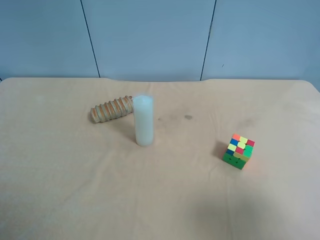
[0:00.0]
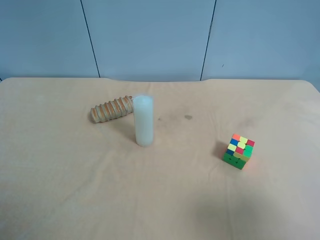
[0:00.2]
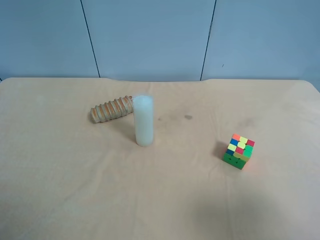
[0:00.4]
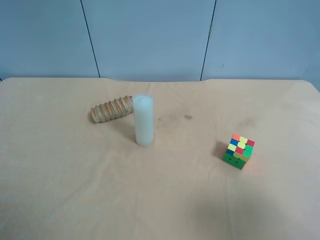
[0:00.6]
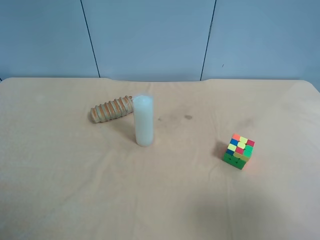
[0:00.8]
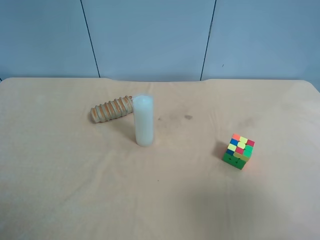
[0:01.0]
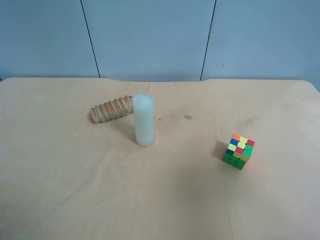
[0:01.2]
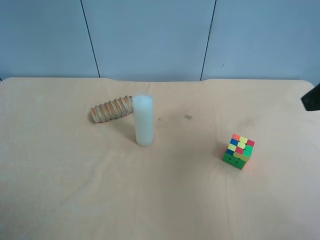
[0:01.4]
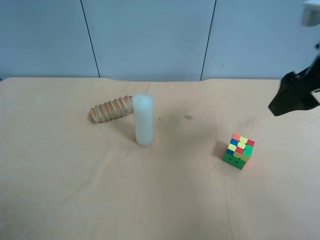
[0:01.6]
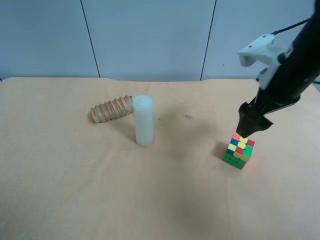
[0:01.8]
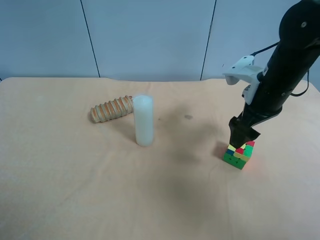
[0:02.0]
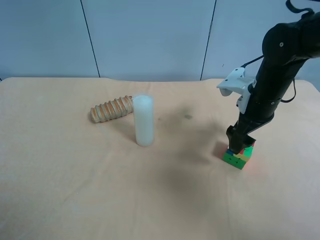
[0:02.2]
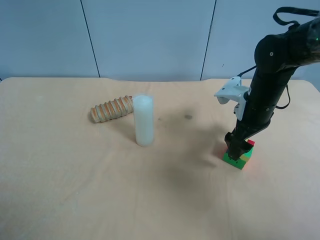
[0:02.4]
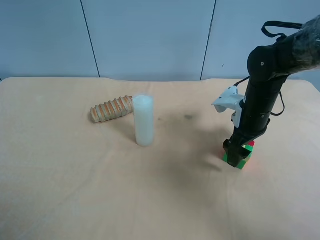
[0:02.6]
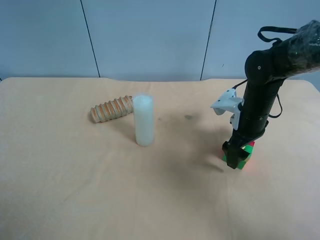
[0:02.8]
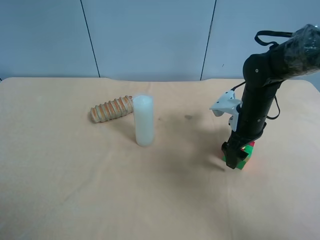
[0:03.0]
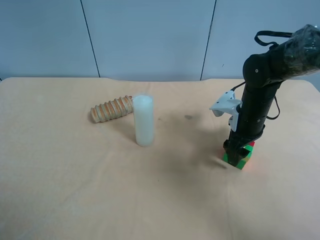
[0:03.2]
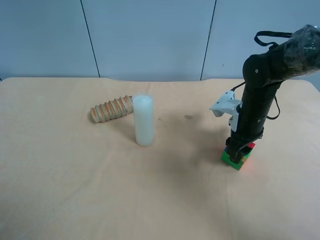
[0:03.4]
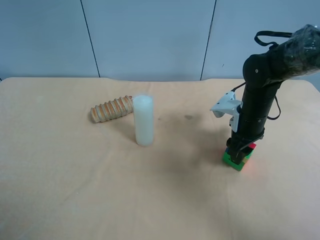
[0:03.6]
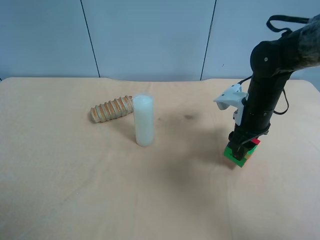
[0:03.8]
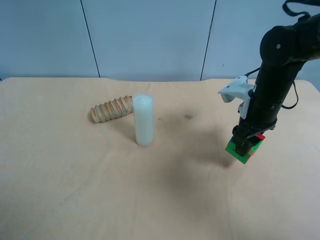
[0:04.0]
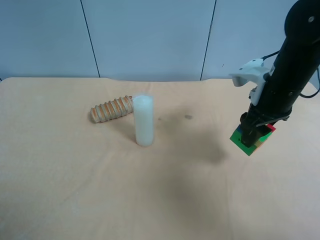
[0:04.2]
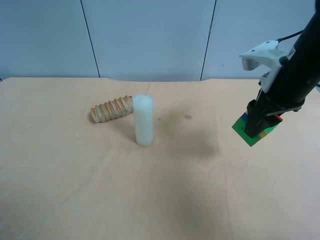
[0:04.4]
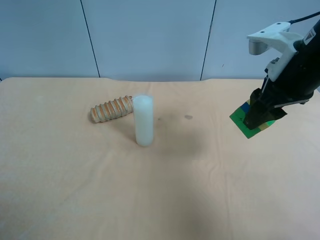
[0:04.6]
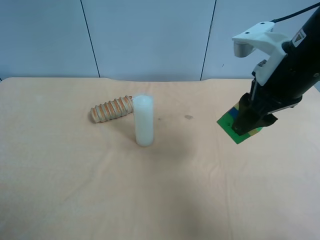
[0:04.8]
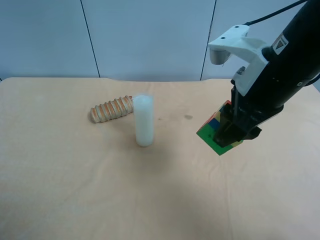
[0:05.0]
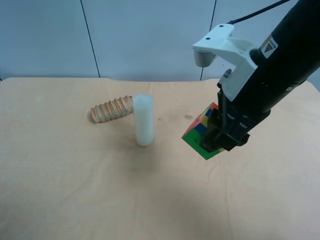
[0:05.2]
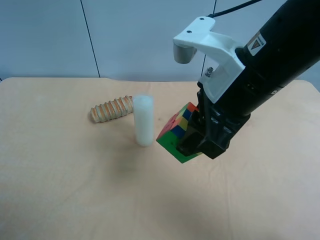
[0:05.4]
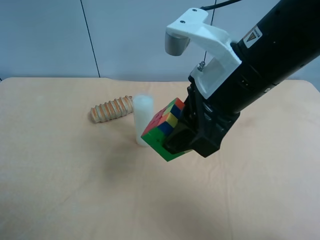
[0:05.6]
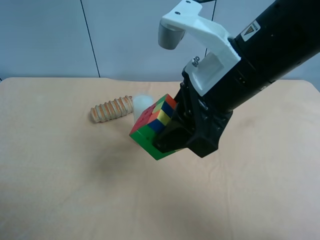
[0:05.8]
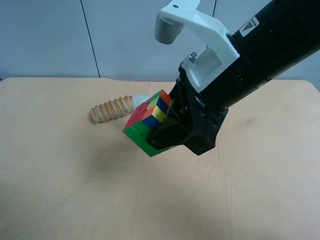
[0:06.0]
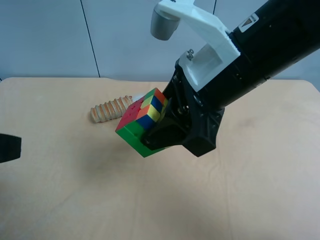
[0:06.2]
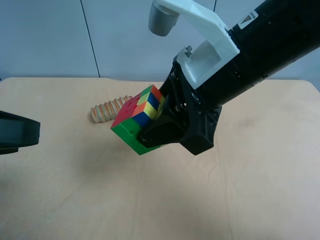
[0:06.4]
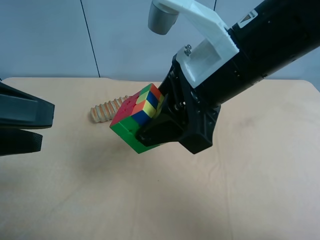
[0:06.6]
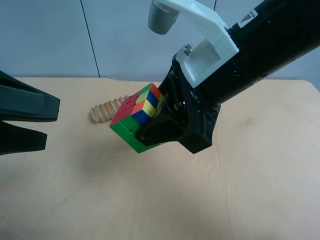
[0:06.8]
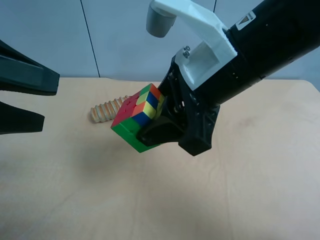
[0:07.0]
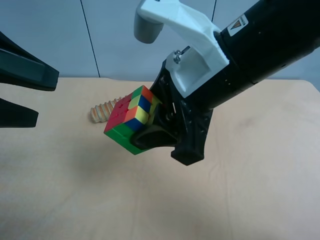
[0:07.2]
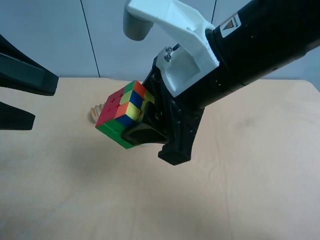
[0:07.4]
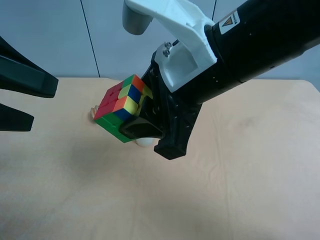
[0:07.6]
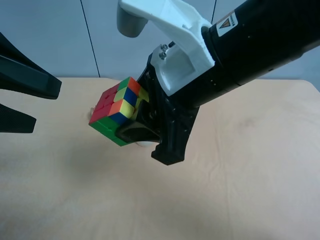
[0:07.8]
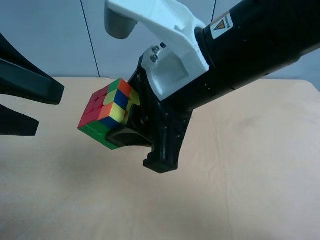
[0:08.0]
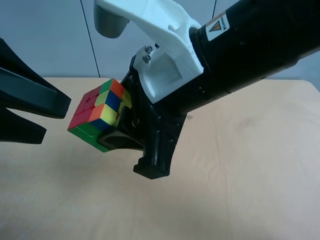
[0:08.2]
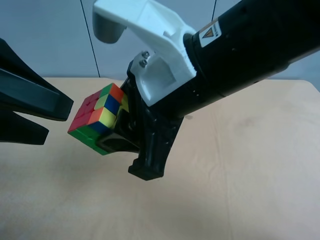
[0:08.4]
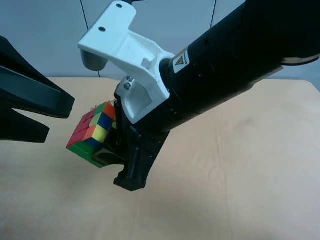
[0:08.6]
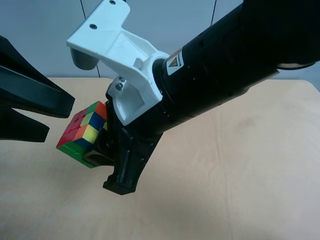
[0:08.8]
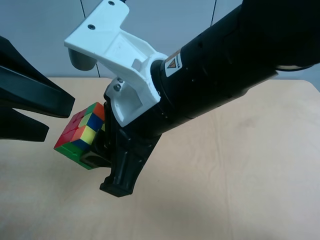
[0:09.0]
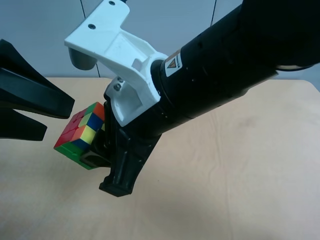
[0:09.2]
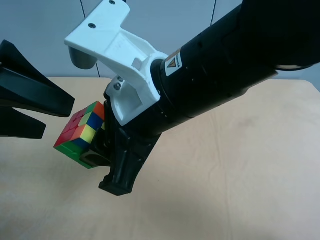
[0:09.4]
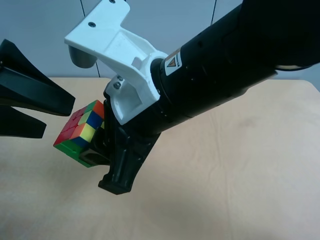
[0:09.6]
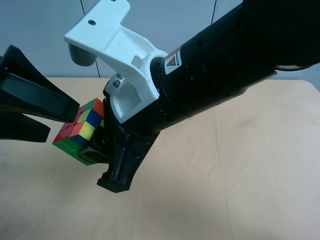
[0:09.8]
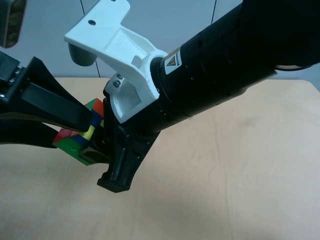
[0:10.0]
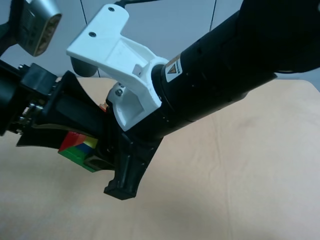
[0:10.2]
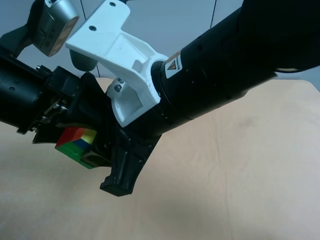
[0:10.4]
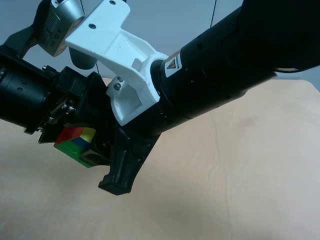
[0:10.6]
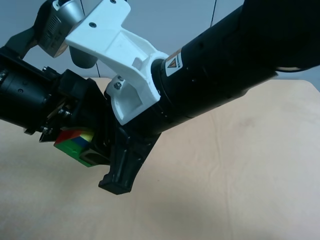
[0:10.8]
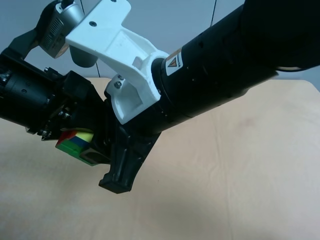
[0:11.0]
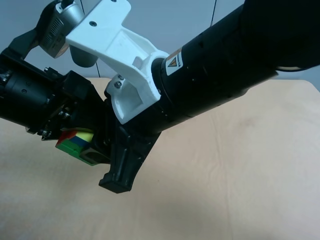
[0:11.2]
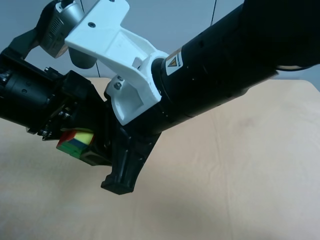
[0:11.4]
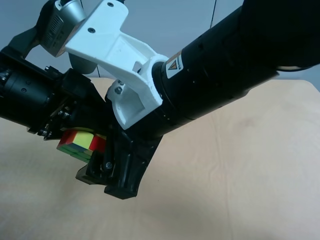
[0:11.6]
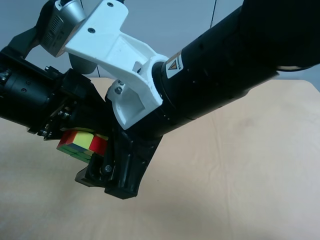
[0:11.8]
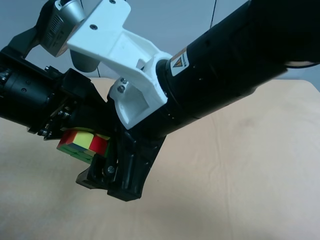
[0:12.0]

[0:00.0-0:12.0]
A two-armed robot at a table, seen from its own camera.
Task of the whole recording: use the right gripper to pick up the item and transfer it from the right gripper to the left gripper.
0:00.0 to 0:01.6: The right gripper goes about 25 cm forward.
0:01.6 to 0:03.0: The right gripper goes roughly 20 cm downward and forward.
0:03.0 to 0:04.4: The right gripper heads upward and backward, covering approximately 15 cm, and closes its fingers.
0:04.4 to 0:06.0: The left gripper shifts some 5 cm forward. Meanwhile the right gripper travels to the left and backward by about 15 cm.
0:06.0 to 0:07.6: The left gripper heads forward, covering approximately 10 cm.
0:07.6 to 0:09.0: The right gripper changes place by some 5 cm.
0:09.0 to 0:10.4: The left gripper shifts roughly 5 cm to the right.
0:10.4 to 0:12.0: The left gripper closes up. Meanwhile the right gripper opens.

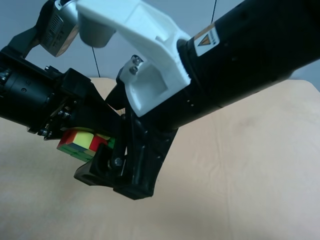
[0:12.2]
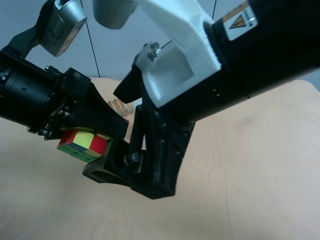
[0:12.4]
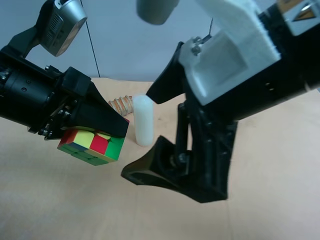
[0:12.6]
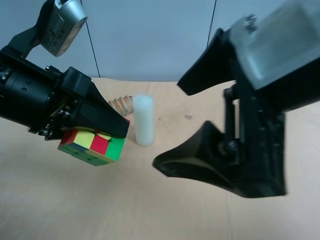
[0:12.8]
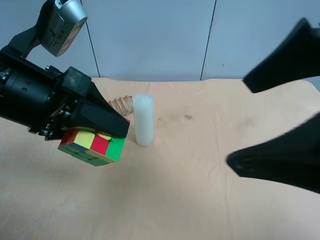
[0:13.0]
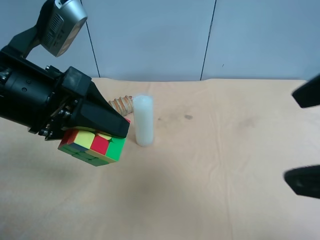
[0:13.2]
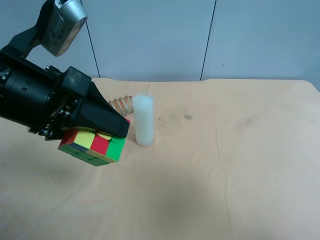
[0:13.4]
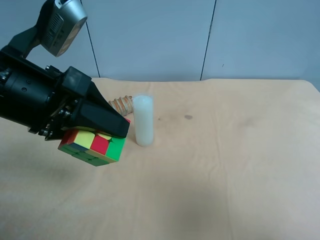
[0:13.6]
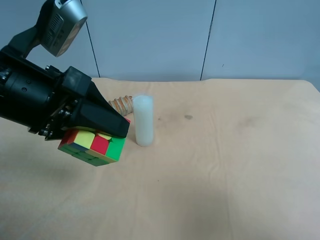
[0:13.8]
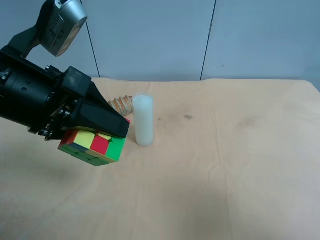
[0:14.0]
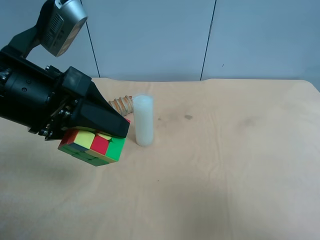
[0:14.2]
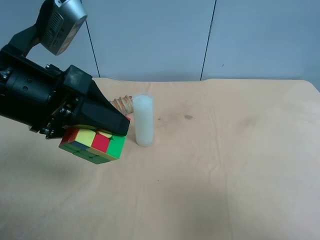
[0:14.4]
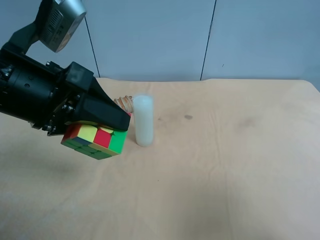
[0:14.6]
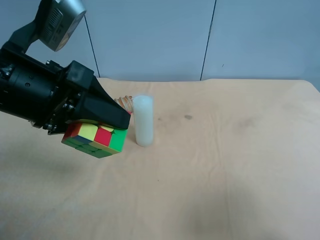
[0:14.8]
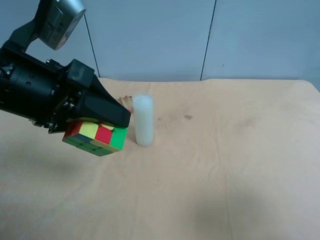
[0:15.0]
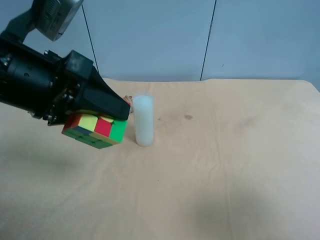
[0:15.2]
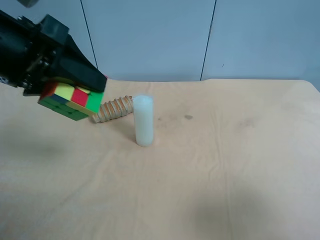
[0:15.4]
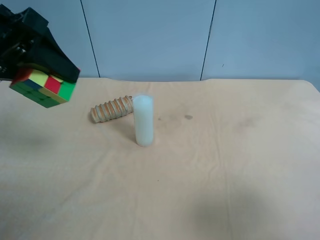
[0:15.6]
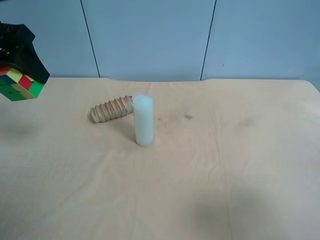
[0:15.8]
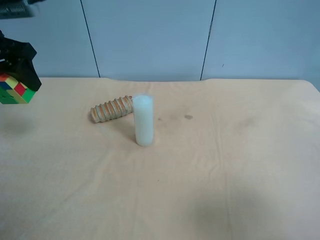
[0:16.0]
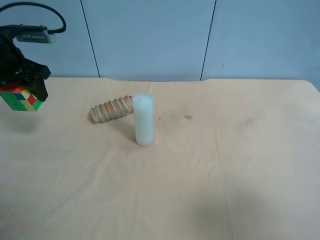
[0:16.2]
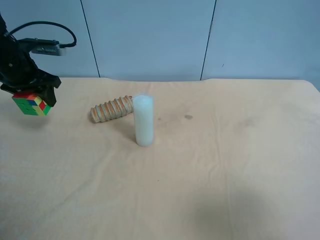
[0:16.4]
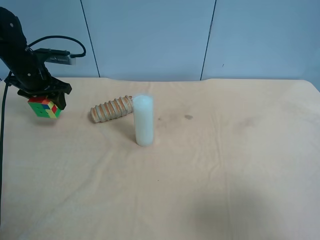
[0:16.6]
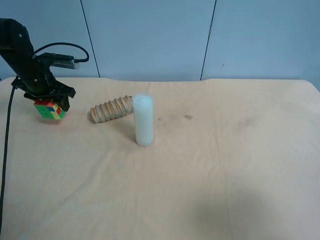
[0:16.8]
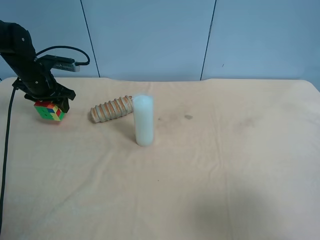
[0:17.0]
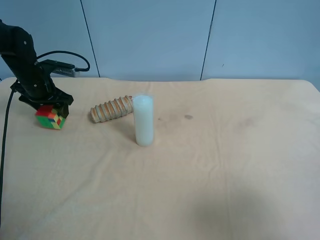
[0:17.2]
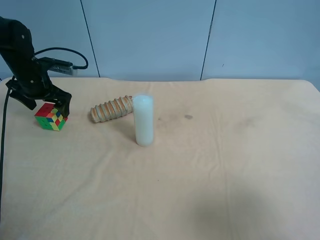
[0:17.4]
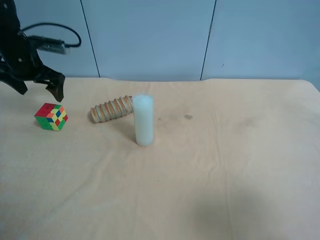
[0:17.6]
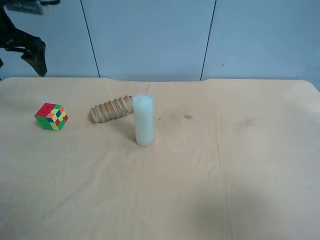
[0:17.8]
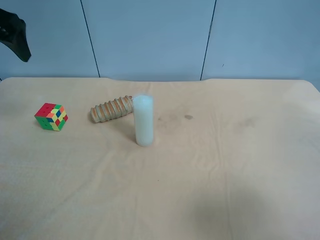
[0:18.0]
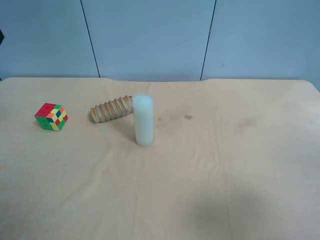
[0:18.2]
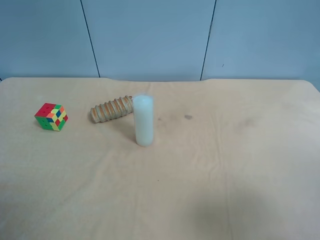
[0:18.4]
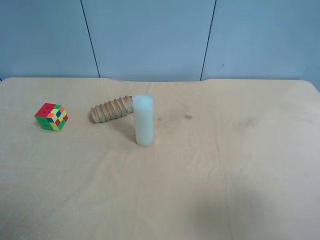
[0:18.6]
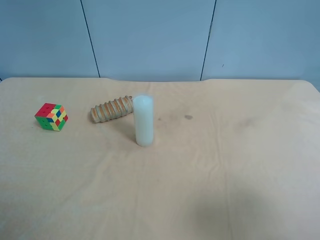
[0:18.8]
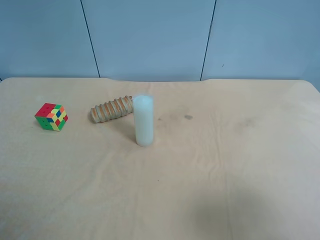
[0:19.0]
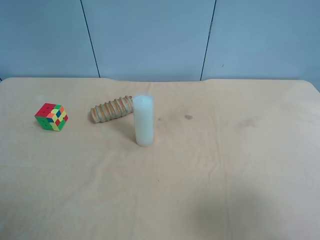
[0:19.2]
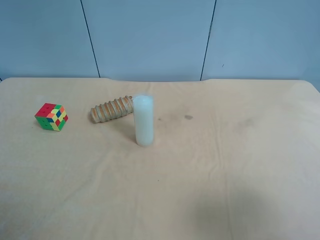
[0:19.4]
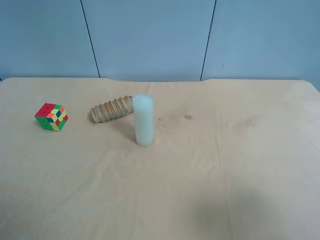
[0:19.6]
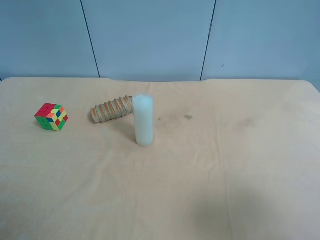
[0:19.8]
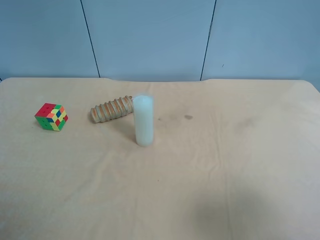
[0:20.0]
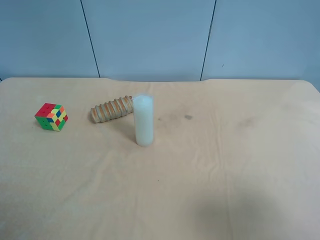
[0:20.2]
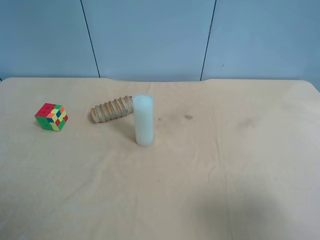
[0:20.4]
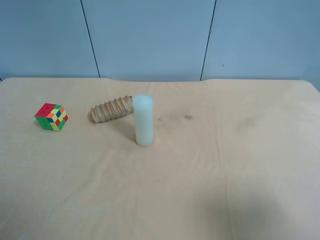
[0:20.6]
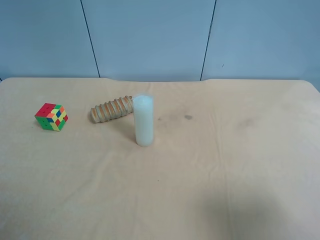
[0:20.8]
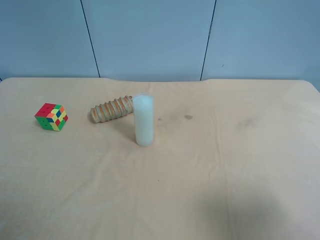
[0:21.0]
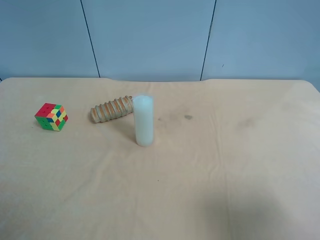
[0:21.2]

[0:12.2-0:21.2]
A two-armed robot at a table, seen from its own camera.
Task of the whole recording: use the right gripper to pick up the item and transfer it from the right gripper to the left gripper.
0:12.2 to 0:13.8: The right gripper heads to the right and backward, covering some 25 cm.
0:15.2 to 0:16.6: The left gripper heads forward, to the left and downward, covering roughly 30 cm.
0:16.6 to 0:18.2: The left gripper goes approximately 25 cm upward and backward, and opens its fingers.

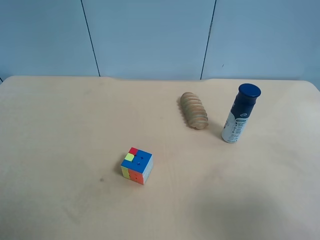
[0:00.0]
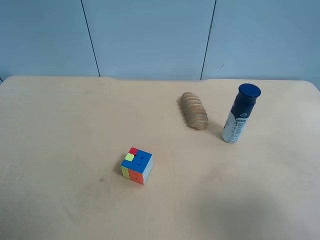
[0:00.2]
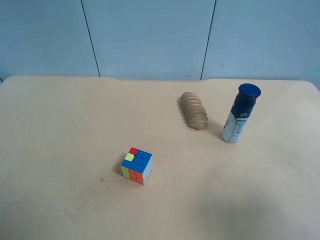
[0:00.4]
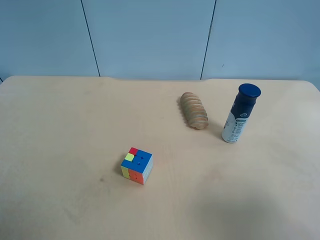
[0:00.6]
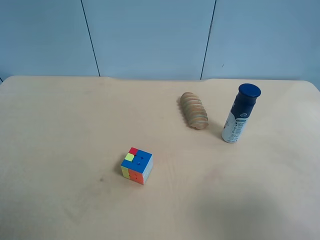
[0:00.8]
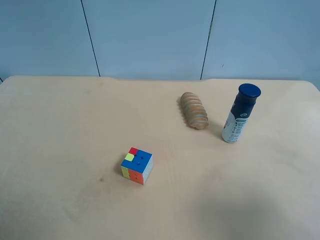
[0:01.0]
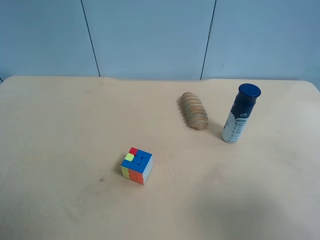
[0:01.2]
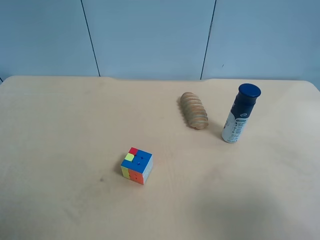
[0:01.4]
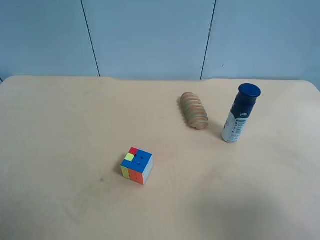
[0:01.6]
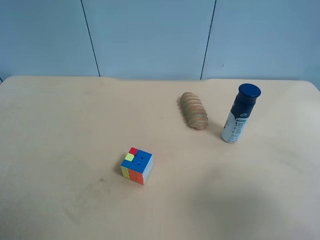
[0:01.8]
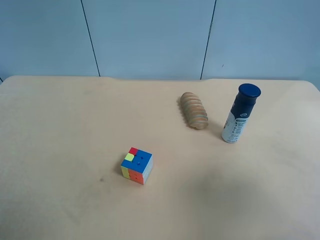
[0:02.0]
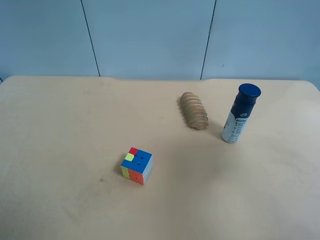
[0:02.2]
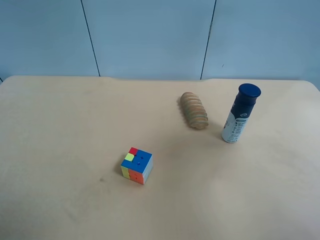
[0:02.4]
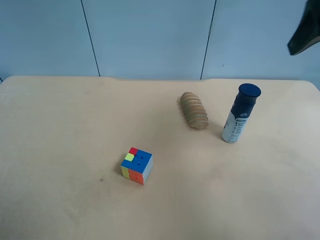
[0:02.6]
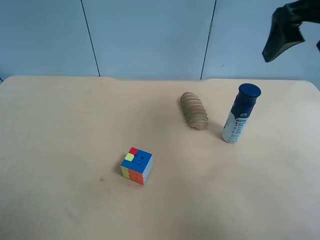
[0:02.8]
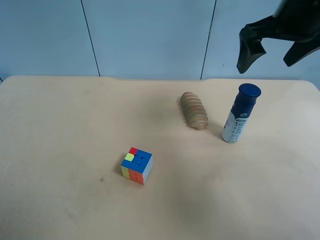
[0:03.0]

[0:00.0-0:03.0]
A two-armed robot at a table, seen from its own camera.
Task of the whole recording: use the right gripper to pick up the item and transfer it from the right gripper to the left gripper.
0:00.0 to 0:01.6: Both grippers stay put.
0:01.6 to 0:03.0: The right gripper is displaced forward by about 30 cm.
